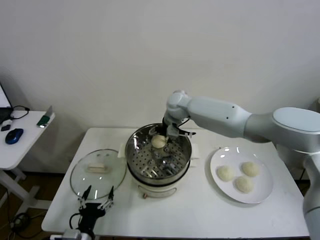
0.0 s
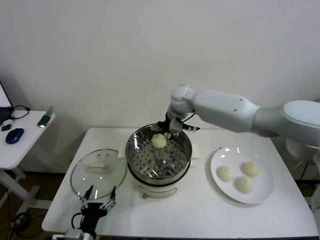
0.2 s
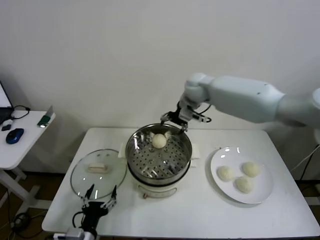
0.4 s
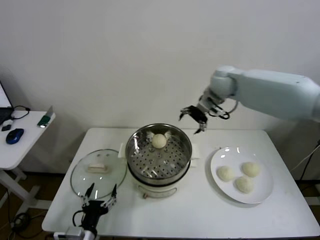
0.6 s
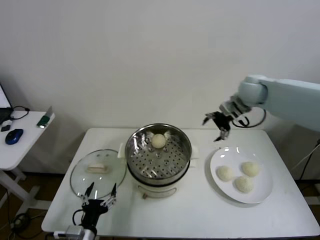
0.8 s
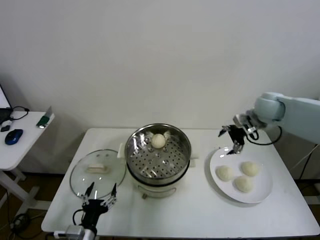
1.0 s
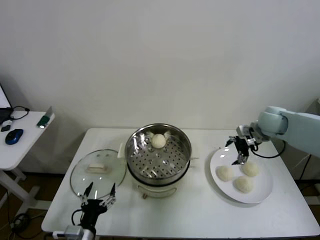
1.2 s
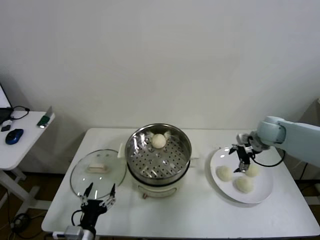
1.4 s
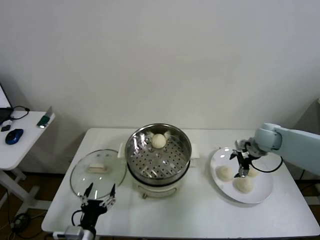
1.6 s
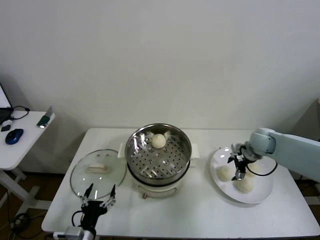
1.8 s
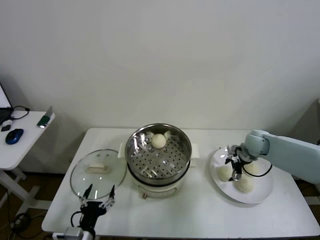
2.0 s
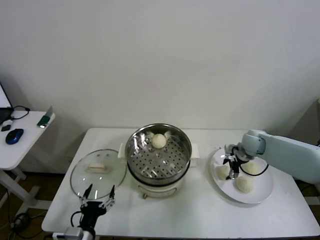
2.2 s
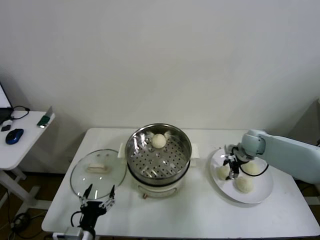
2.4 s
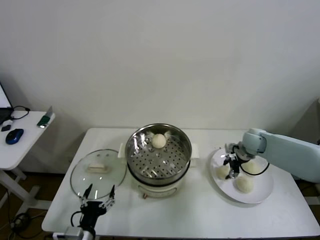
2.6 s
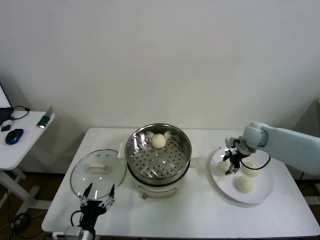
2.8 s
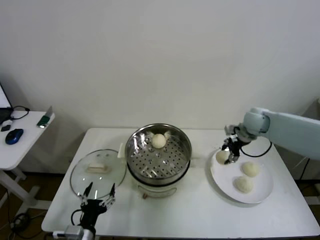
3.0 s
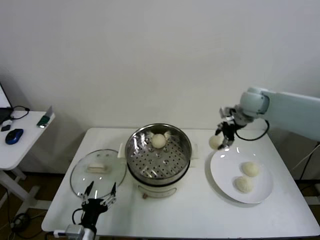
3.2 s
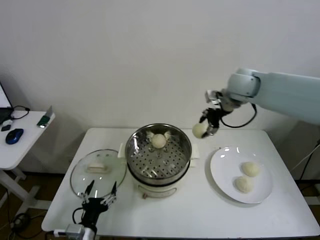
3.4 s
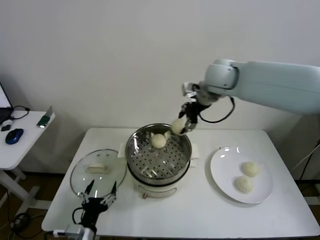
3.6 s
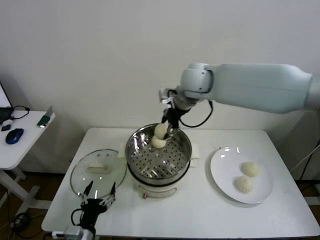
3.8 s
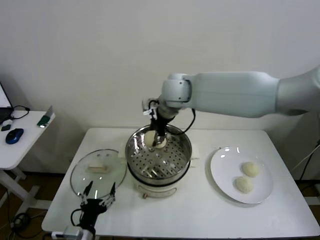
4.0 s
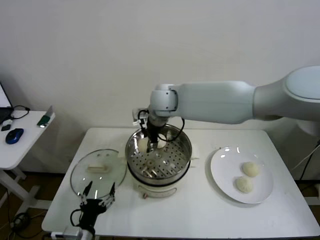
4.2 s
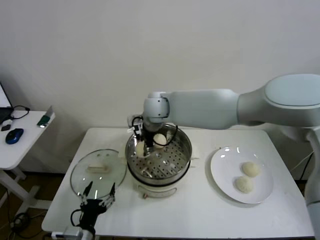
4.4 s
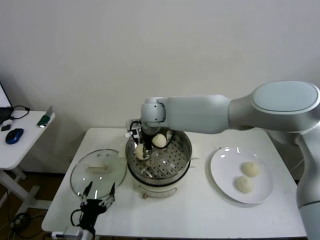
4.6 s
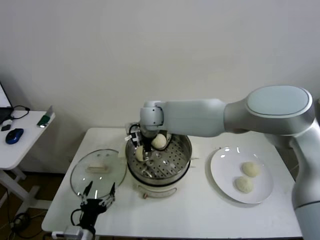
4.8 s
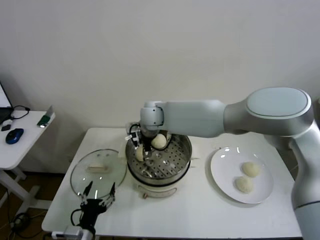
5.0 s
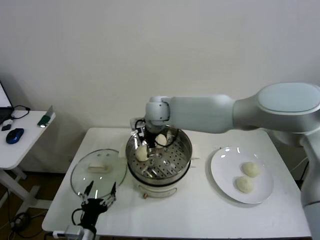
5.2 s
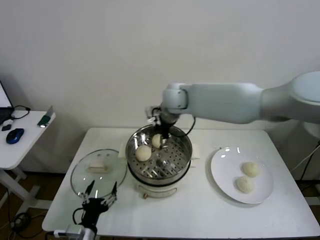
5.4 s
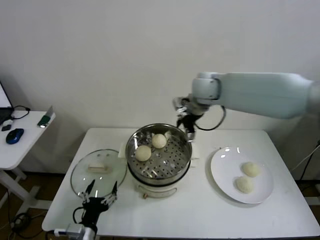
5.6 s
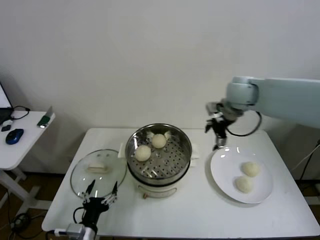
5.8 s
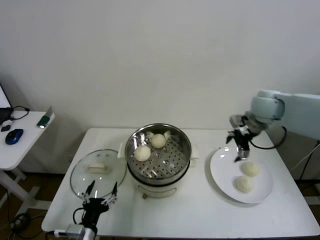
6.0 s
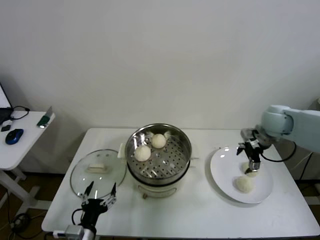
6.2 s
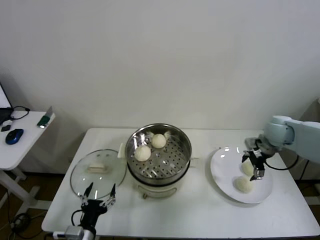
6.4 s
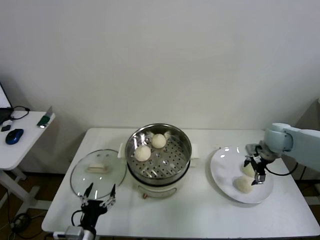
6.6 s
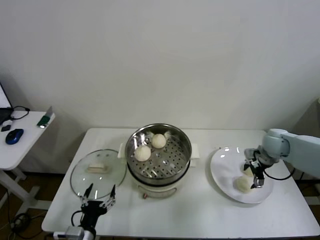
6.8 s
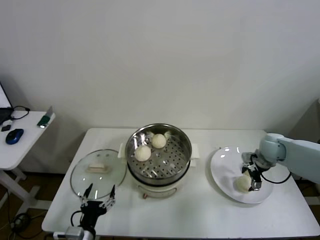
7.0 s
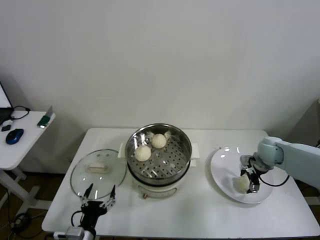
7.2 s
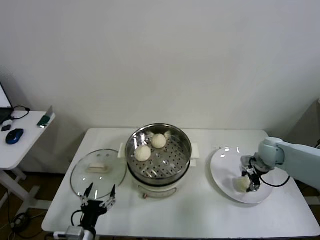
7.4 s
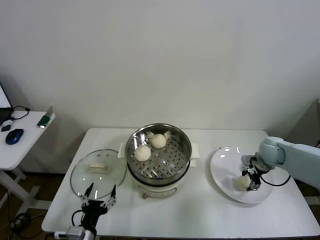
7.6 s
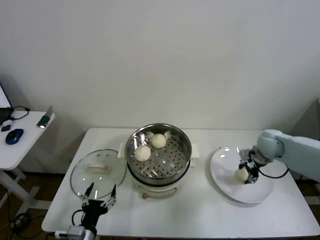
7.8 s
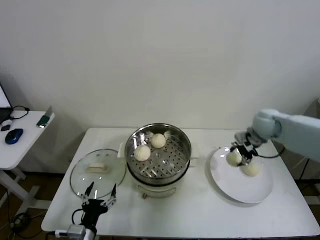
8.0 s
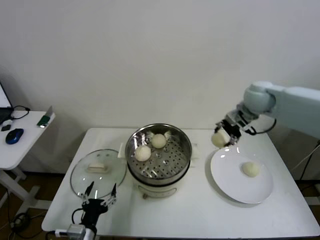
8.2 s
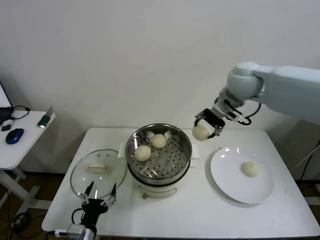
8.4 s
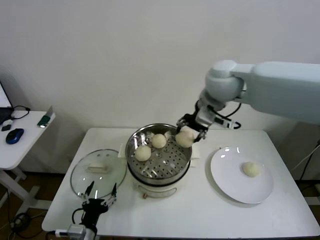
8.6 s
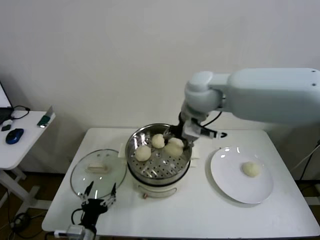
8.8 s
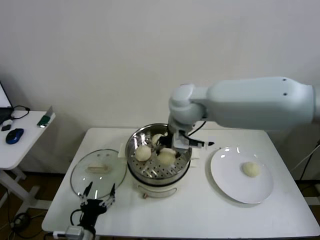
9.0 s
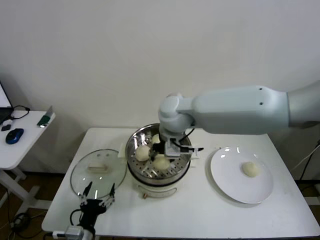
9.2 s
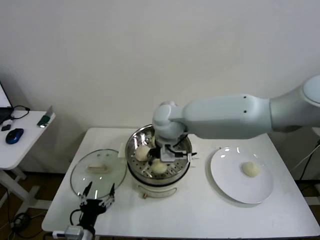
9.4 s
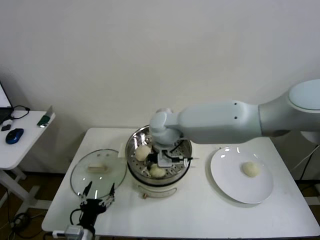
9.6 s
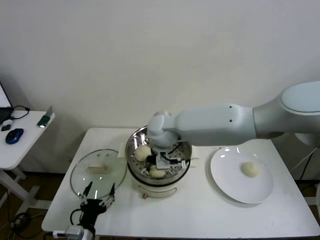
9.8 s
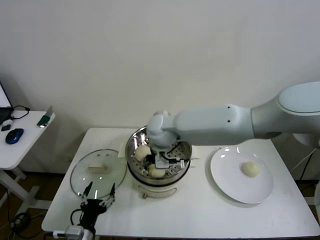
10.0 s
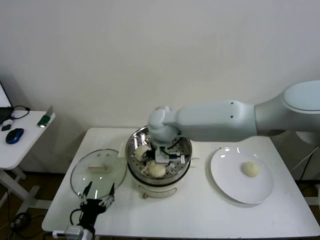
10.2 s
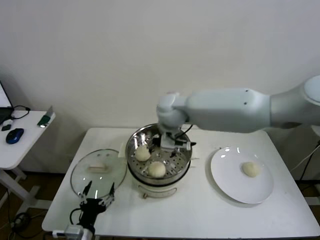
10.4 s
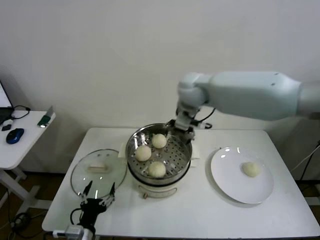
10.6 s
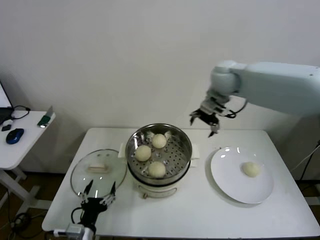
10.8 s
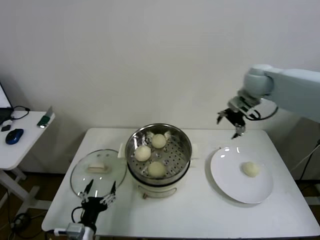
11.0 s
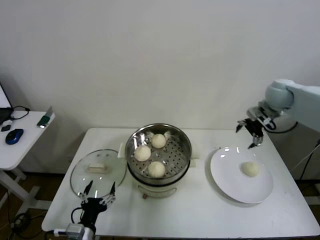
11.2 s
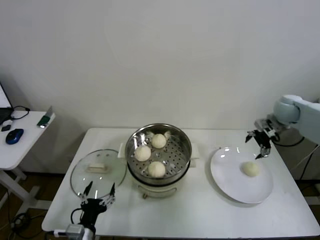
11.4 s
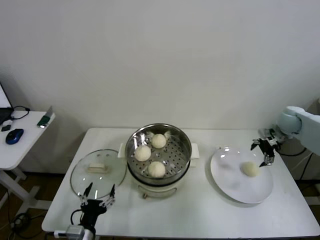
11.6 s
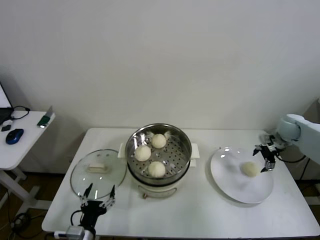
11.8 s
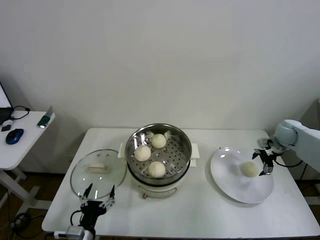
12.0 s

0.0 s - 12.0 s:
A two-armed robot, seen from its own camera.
Step, 0.2 s - 2.4 s: Grasp the baozi in the plate with right gripper.
Step, 2.6 s - 5.0 s: Place the baozi on the steamer with right gripper.
Step, 5.2 s - 7.4 s: Grasp the baozi in the plate with right gripper.
Step, 7.6 s - 10.2 s: Place the baozi on the steamer with right gripper.
0.0 s - 1.6 s: The right gripper travels to the right by roughly 30 cm.
1.6 s - 3.0 s: The right gripper shifts roughly 10 cm upward, and closes up.
3.0 s - 4.4 s: The right gripper travels to the left by approximately 35 cm.
4.4 s - 6.0 s: The right gripper is displaced to the right by about 35 cm, and opens.
6.0 s - 7.6 s: The right gripper goes approximately 15 cm downward, and closes its fingers.
7.6 s - 9.0 s: The right gripper heads to the left and upward, covering some 40 cm.
9.0 s - 10.4 s: The right gripper opens its fingers.
10.4 s - 12.0 s: The right gripper moves to the right, about 40 cm.

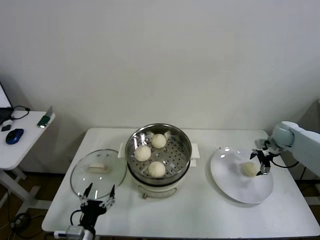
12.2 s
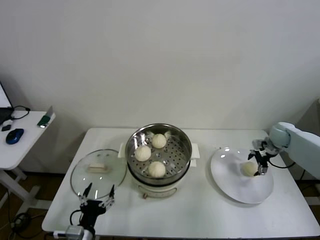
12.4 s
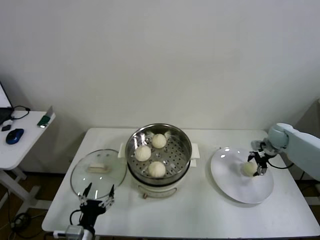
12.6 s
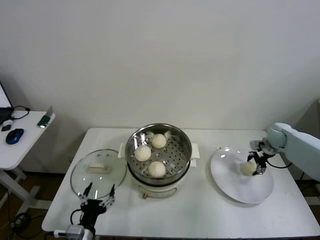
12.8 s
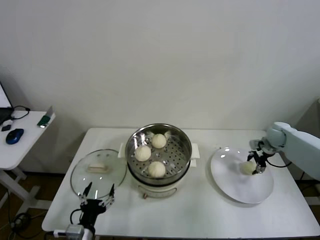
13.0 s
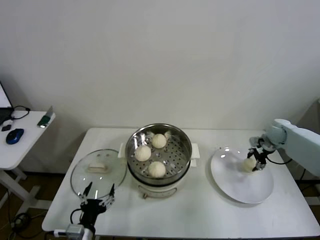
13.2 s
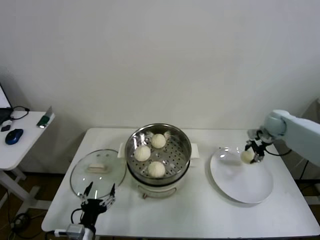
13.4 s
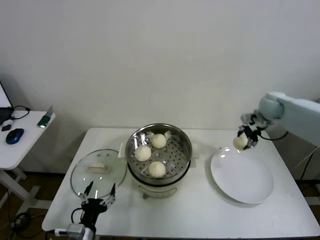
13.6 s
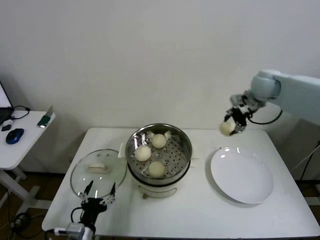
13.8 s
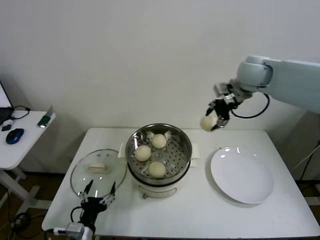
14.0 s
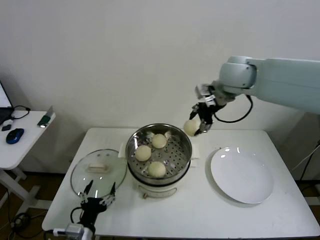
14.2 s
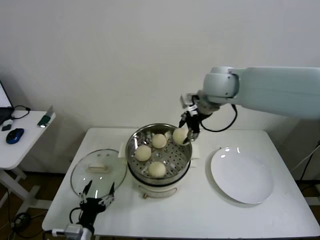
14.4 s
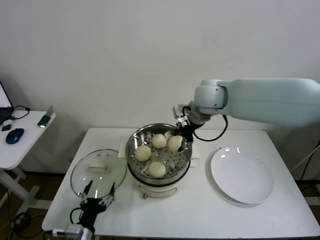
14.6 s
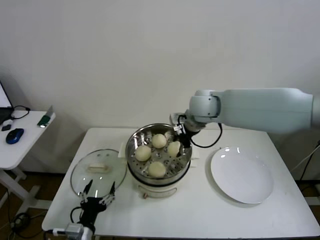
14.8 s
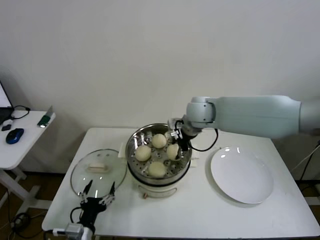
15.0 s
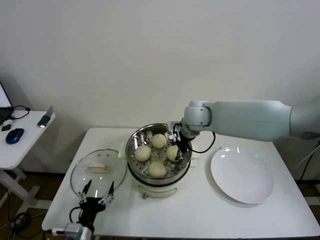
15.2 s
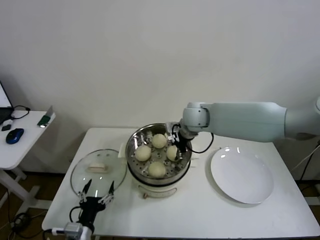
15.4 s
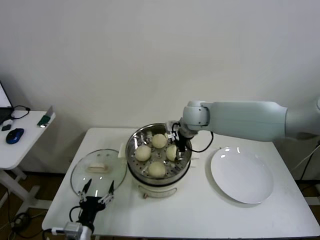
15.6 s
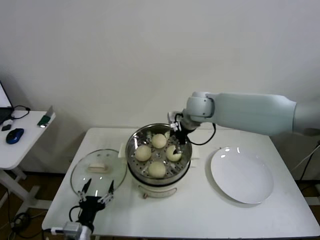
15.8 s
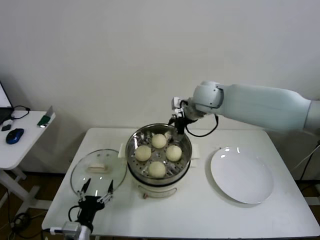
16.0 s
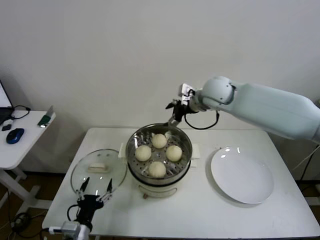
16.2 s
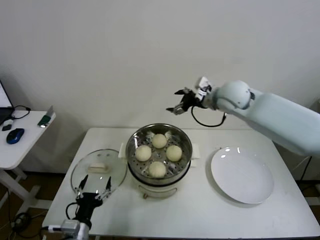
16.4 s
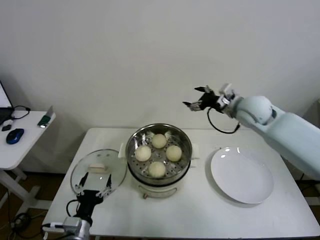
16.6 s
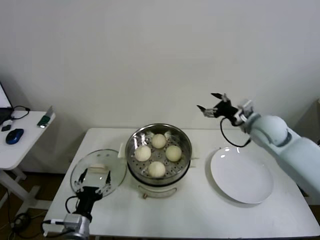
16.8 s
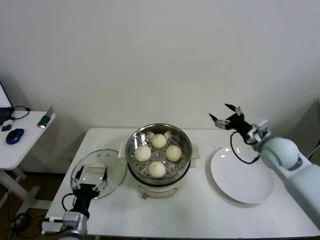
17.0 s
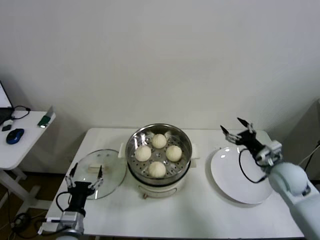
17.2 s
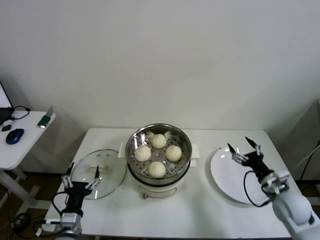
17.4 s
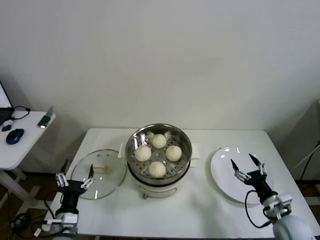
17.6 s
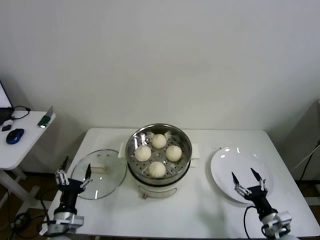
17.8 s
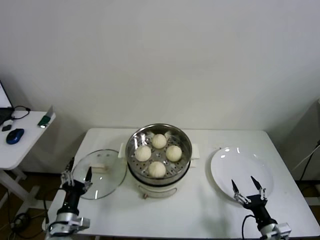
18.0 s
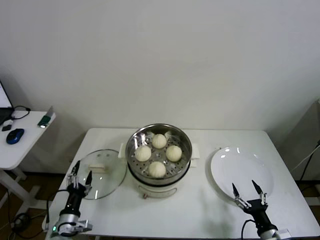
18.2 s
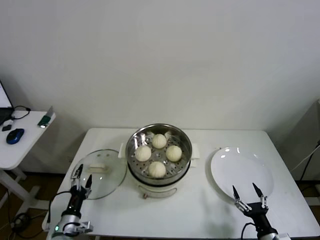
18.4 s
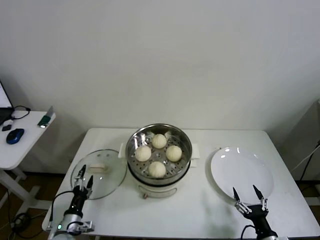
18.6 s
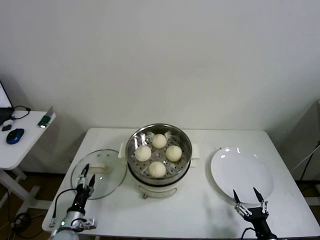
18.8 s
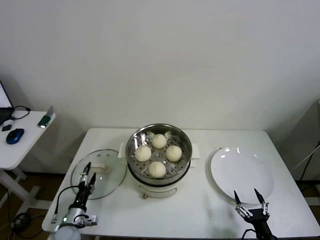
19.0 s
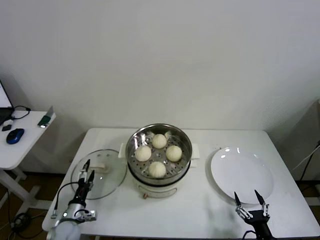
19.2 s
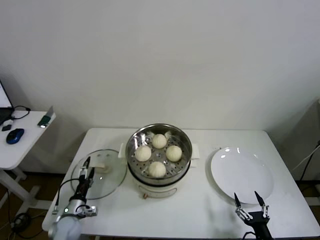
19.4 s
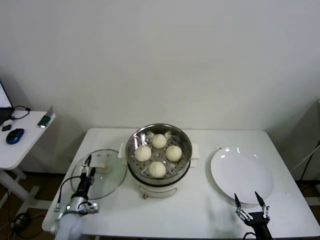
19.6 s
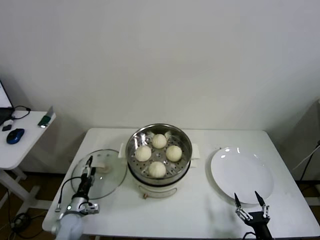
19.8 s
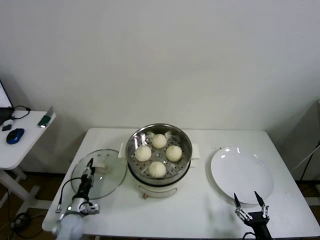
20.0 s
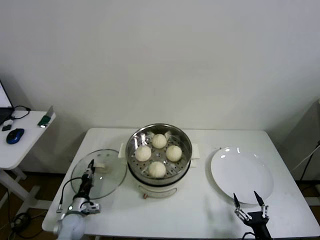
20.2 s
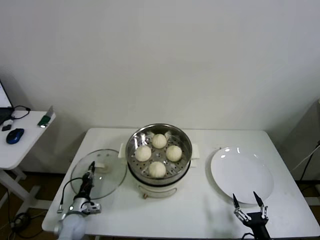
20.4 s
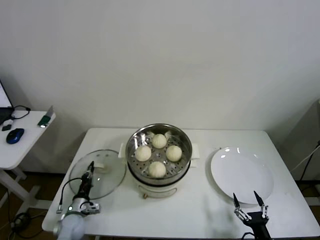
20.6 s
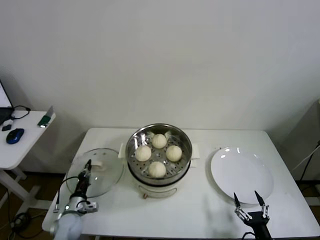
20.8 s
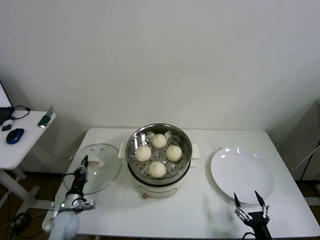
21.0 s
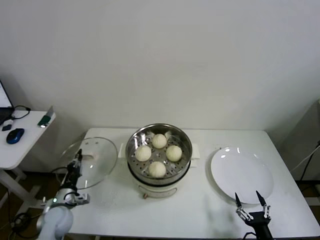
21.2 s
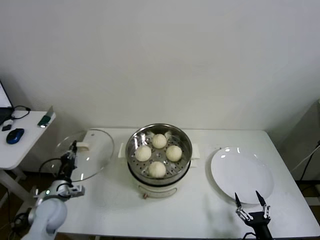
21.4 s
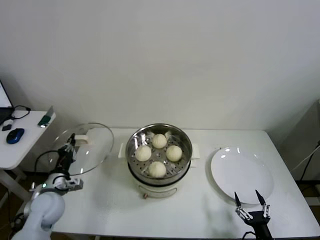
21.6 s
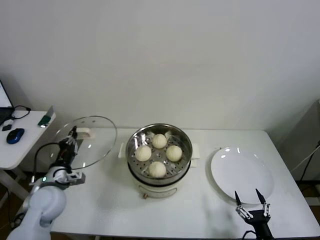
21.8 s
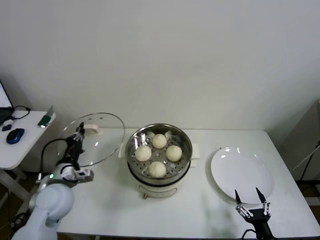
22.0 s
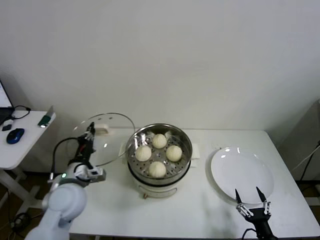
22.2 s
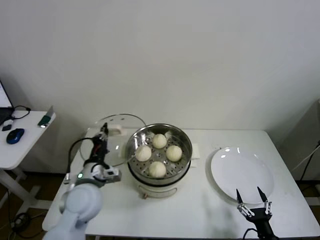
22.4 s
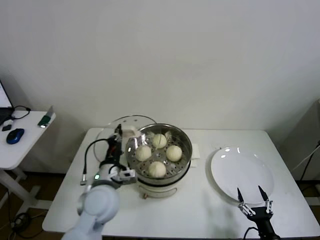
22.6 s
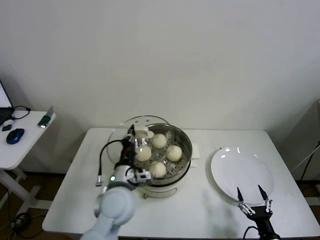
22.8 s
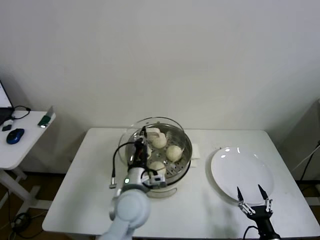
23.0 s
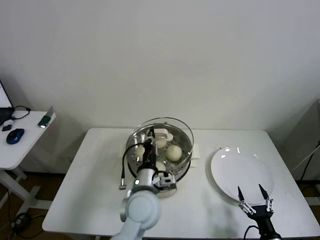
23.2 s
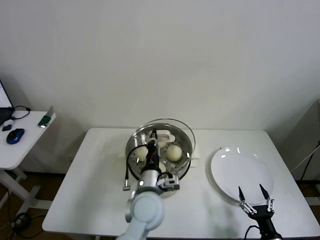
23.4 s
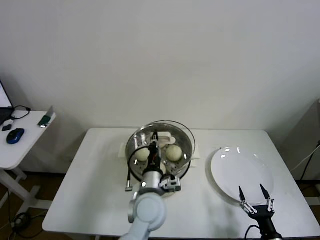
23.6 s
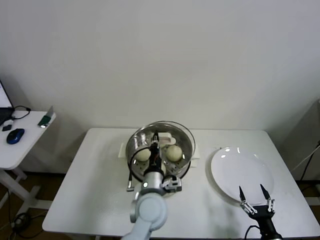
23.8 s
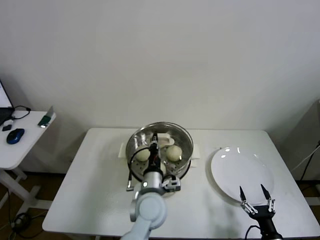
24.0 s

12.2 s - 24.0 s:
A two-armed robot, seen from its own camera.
Step, 13.0 s - 15.8 s: Place the baozi on the steamer with right gripper.
Step, 16.0 s - 20.4 s: Grasp the pot lid with left gripper.
12.2 s - 13.6 s: The right gripper travels upward and to the left by roughly 15 cm, and closes its fingers.
13.6 s - 15.2 s: The right gripper goes approximately 30 cm to the left.
15.2 s - 16.6 s: The right gripper moves to the right, some 15 cm, and opens up.
16.6 s - 18.2 s: The left gripper moves to the left and downward, about 10 cm, while the right gripper shifts roughly 50 cm backward and downward.
18.2 s - 19.6 s: The left gripper heads forward and downward, covering some 10 cm.
19.6 s - 21.0 s: The left gripper closes its fingers.
21.0 s - 22.6 s: The left gripper goes approximately 30 cm upward and to the right.
22.6 s - 24.0 s: The left gripper shifts about 15 cm to the right.
